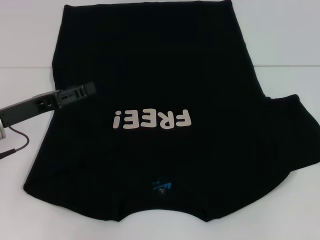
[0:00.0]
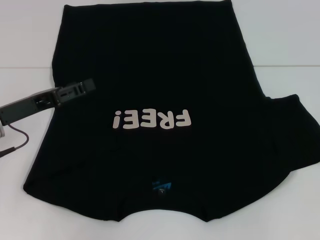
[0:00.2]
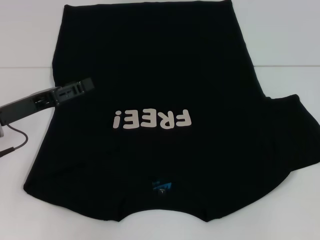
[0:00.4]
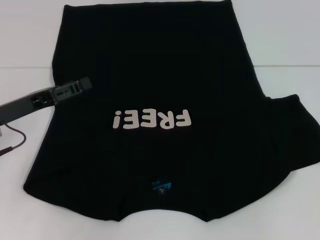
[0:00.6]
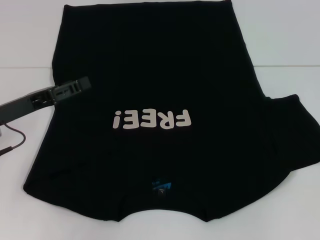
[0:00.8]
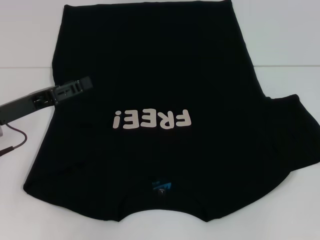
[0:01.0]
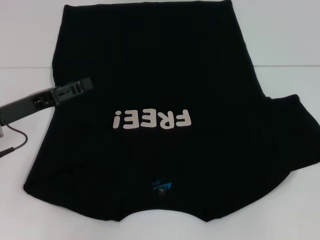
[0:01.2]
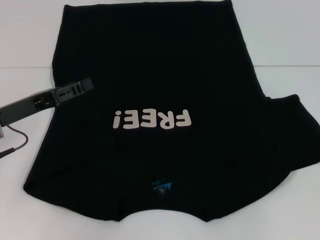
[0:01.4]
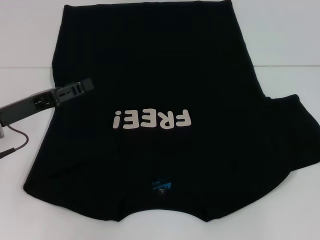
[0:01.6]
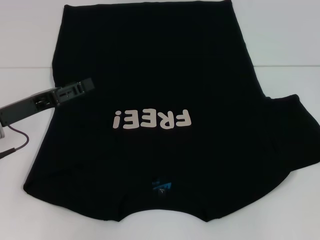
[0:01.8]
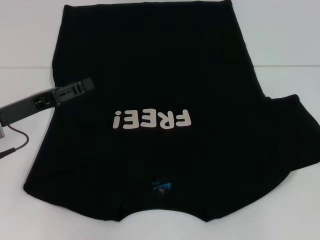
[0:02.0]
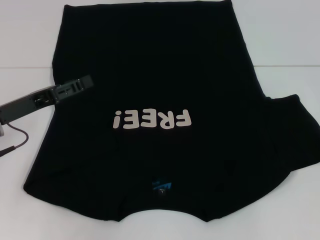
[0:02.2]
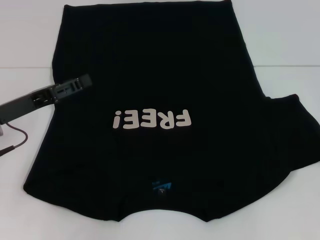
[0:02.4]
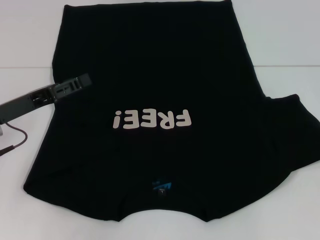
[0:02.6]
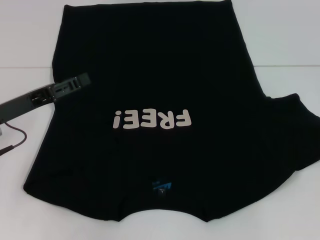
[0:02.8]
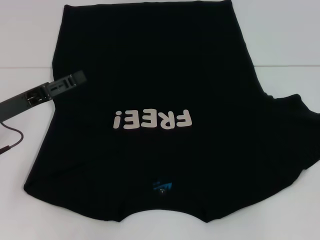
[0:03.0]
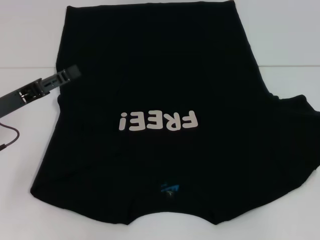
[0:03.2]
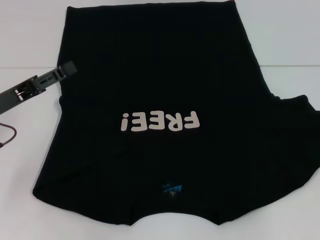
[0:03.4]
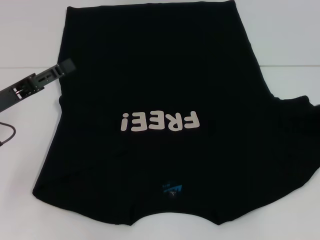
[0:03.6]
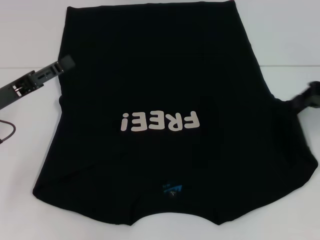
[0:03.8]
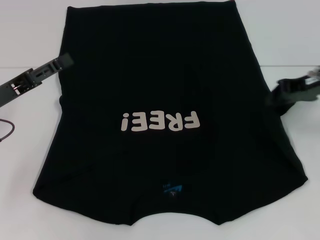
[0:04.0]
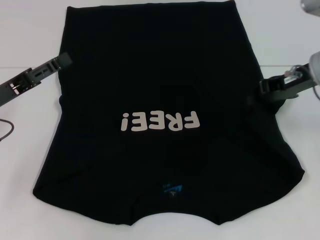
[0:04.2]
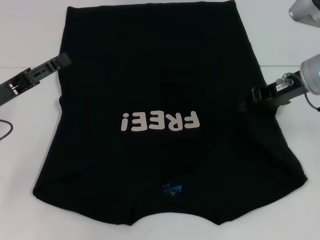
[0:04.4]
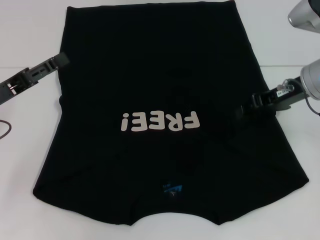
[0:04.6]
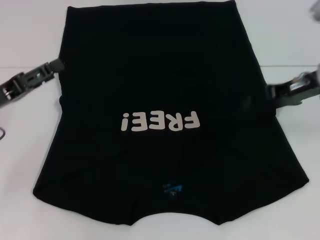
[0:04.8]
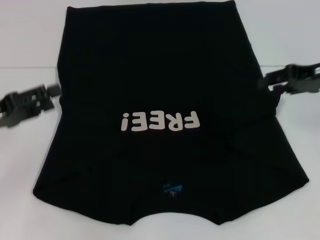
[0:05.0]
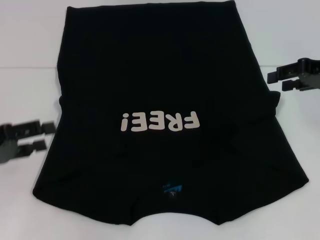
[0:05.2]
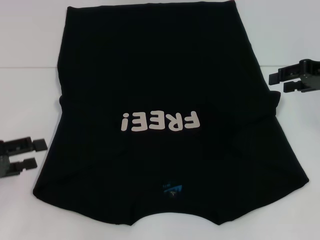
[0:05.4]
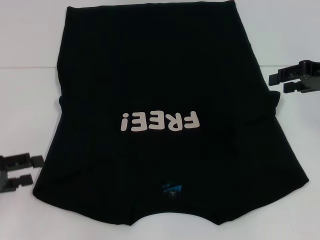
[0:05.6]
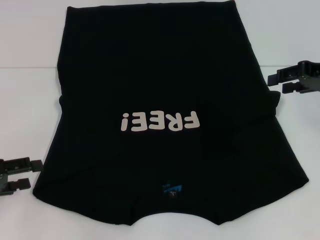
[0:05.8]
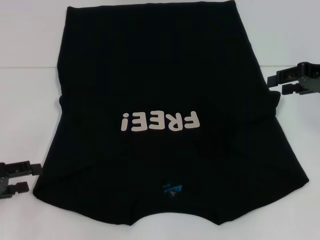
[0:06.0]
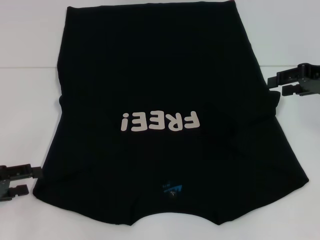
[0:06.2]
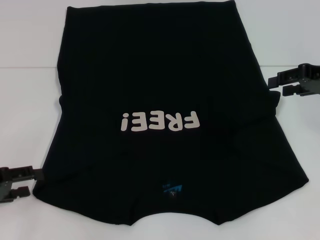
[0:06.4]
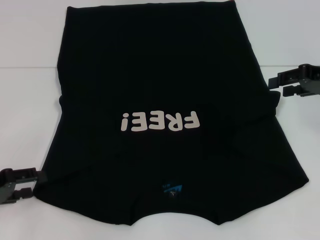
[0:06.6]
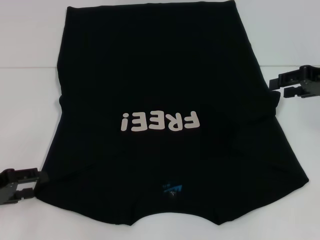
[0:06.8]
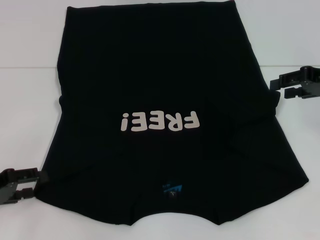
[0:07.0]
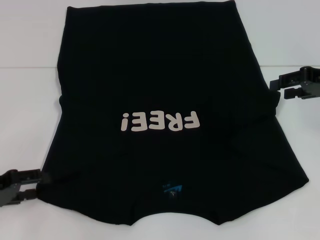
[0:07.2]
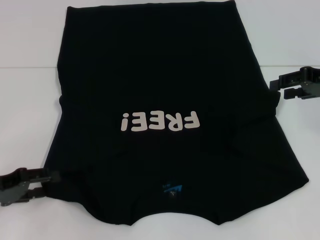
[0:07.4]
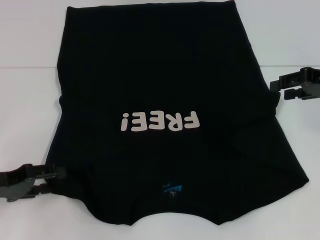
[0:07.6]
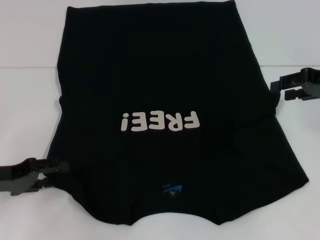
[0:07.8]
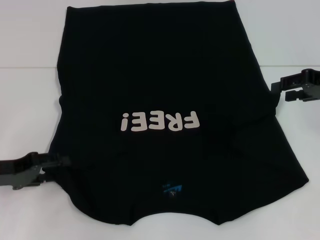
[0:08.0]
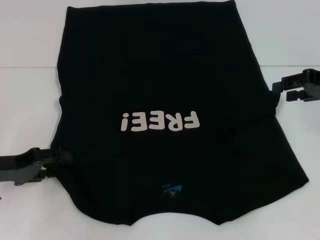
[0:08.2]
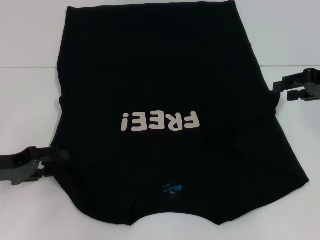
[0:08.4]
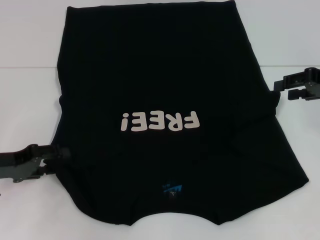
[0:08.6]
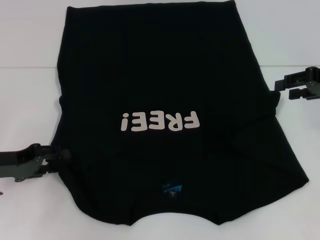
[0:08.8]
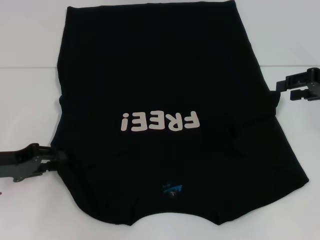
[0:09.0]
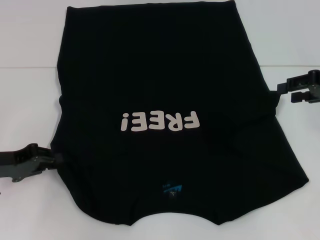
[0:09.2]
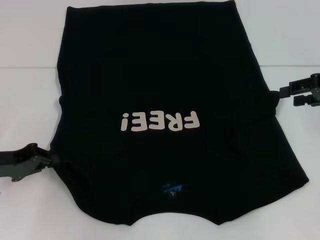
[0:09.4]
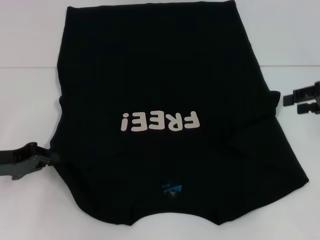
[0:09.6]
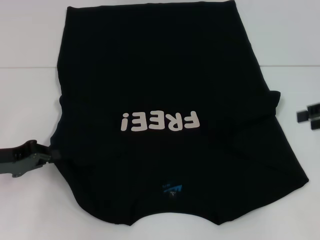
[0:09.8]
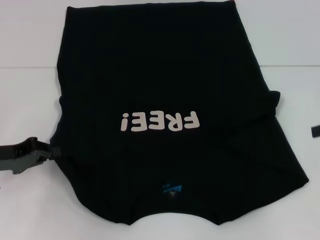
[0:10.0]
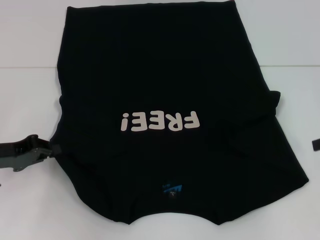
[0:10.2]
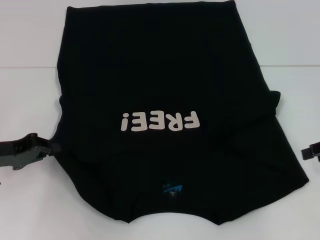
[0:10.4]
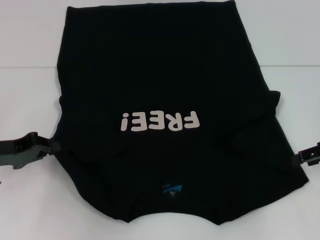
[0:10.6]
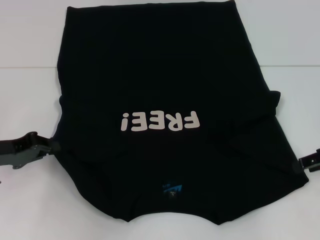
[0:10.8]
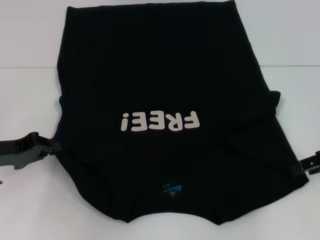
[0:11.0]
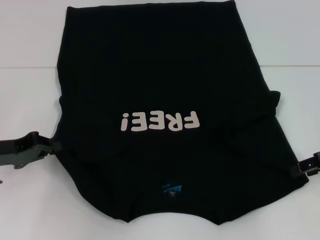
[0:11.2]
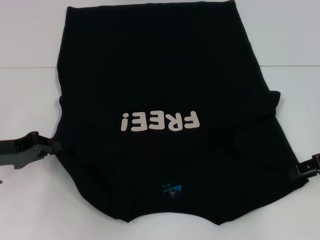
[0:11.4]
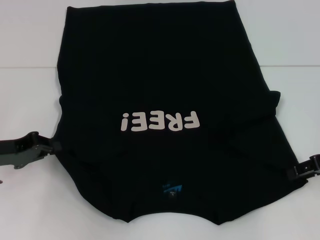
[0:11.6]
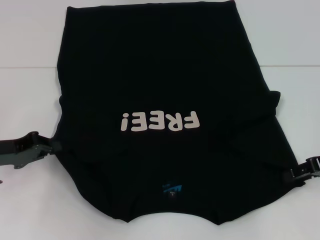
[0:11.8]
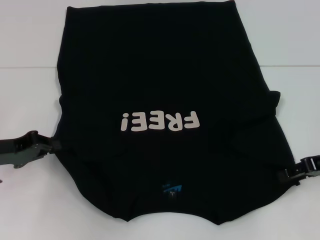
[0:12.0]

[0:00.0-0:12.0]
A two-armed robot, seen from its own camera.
Step, 0:00.0 to 0:04.6: Fold the bottom right sleeve with your right hand.
Step, 0:04.8 to 0:10.0: Grab the bottom left corner with your left hand.
0:01.6 to 0:03.0: The right gripper closes.
0:03.0 to 0:04.4: The right gripper shifts about 15 cm to the left.
0:04.4 to 0:06.0: The right gripper moves to the right, some 10 cm, and opens, while the left gripper moves backward and to the left, some 10 cm.
0:06.0 to 0:07.6: There are only small adjustments of the grippers.
0:07.6 to 0:09.0: The grippers move only a little.
0:09.0 to 0:10.4: The left gripper closes; the right gripper changes place by about 5 cm.
0:10.4 to 0:12.0: The right gripper moves some 5 cm.

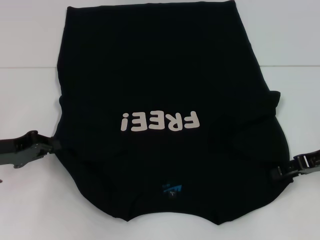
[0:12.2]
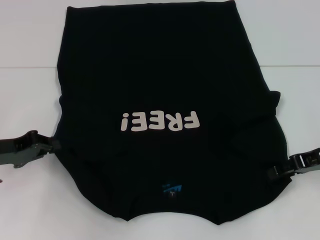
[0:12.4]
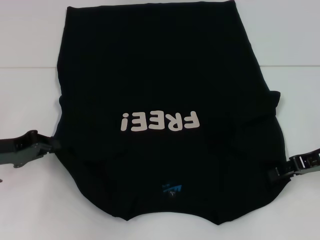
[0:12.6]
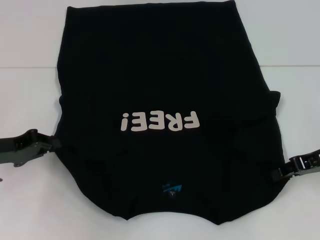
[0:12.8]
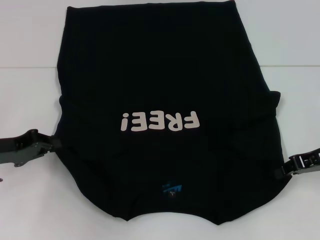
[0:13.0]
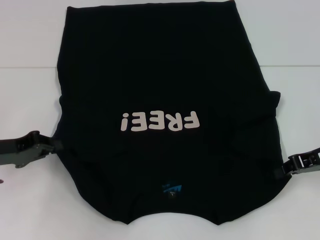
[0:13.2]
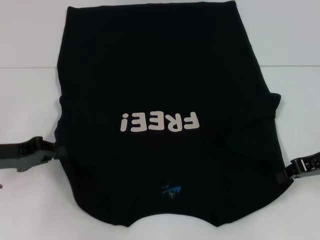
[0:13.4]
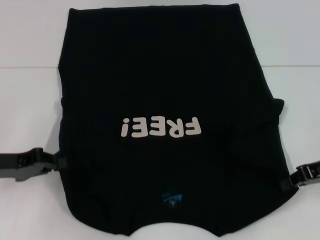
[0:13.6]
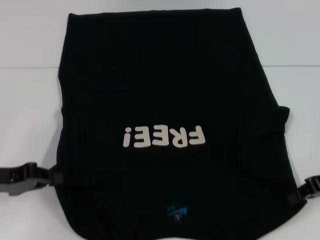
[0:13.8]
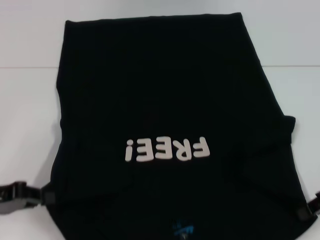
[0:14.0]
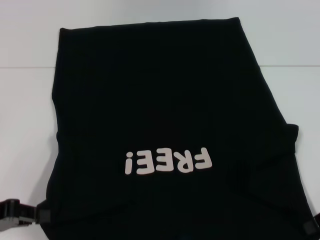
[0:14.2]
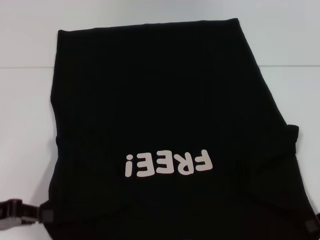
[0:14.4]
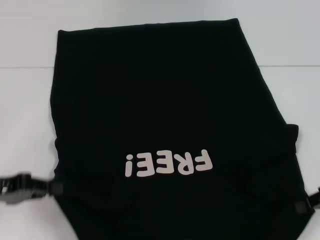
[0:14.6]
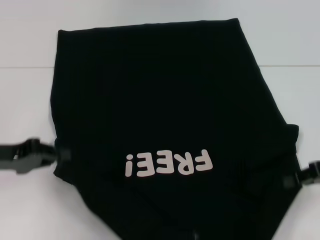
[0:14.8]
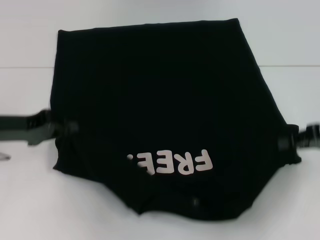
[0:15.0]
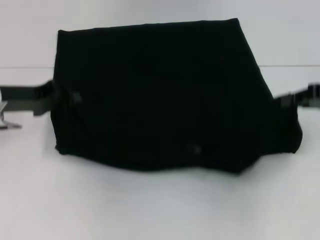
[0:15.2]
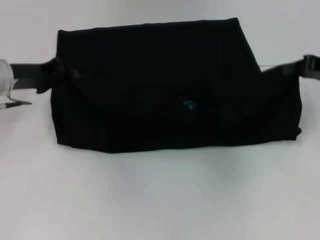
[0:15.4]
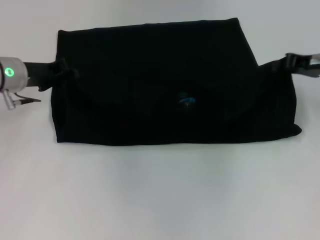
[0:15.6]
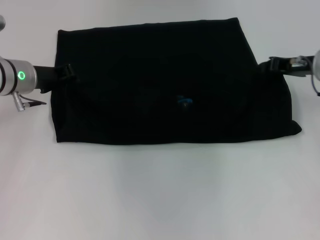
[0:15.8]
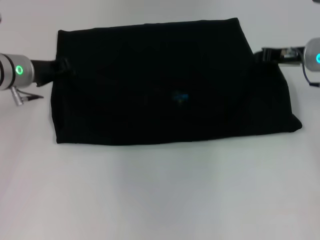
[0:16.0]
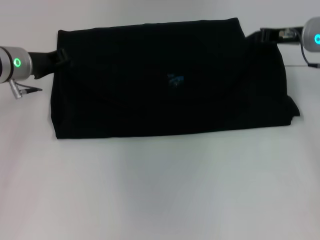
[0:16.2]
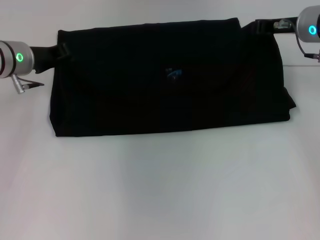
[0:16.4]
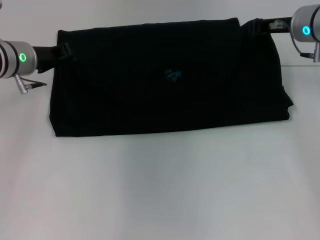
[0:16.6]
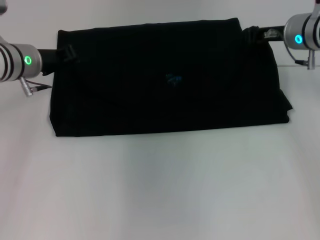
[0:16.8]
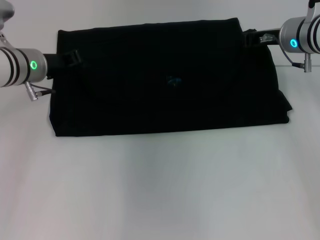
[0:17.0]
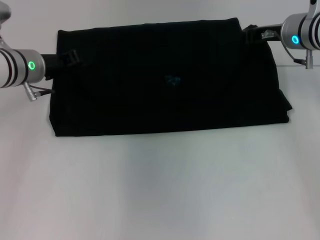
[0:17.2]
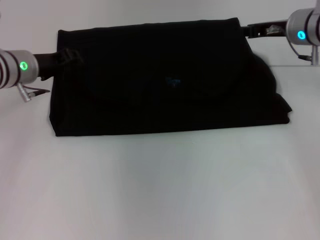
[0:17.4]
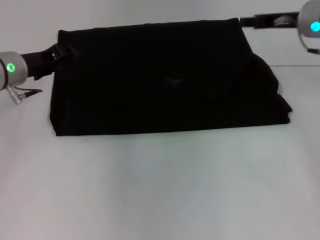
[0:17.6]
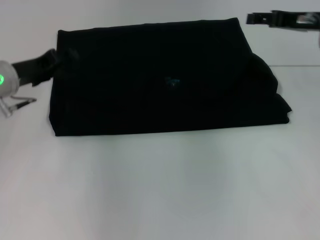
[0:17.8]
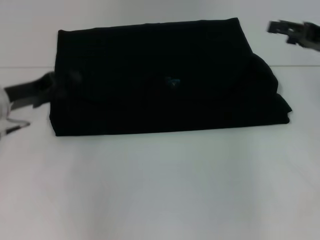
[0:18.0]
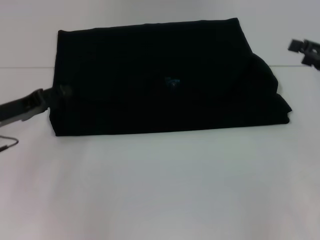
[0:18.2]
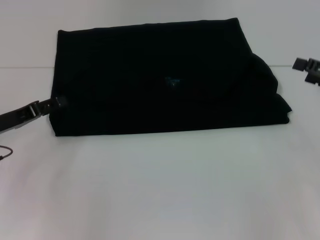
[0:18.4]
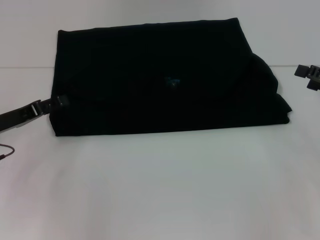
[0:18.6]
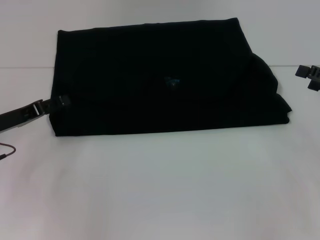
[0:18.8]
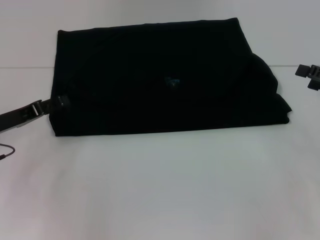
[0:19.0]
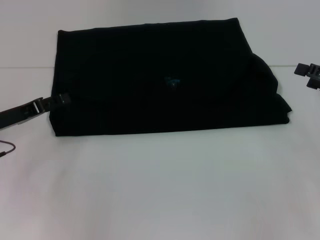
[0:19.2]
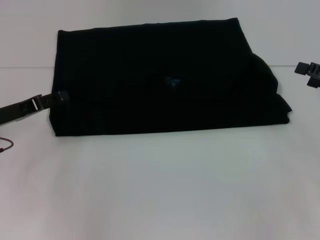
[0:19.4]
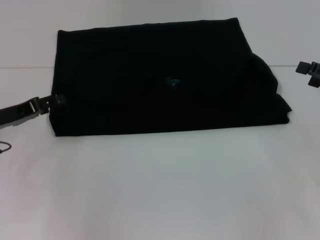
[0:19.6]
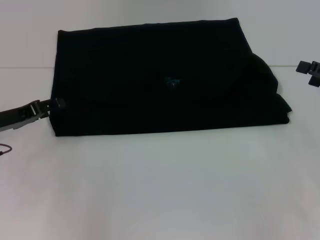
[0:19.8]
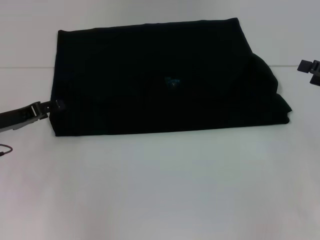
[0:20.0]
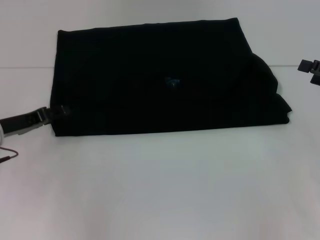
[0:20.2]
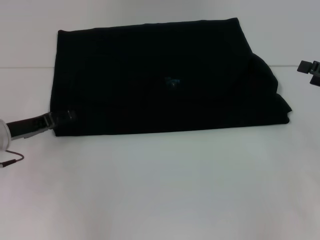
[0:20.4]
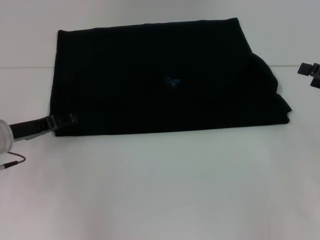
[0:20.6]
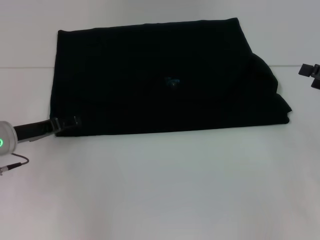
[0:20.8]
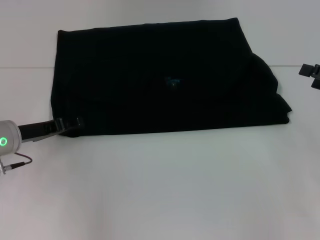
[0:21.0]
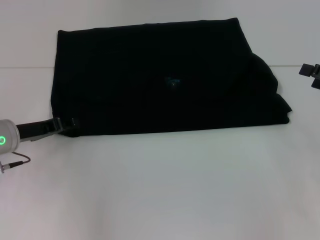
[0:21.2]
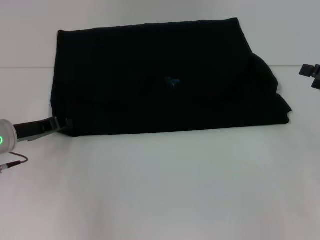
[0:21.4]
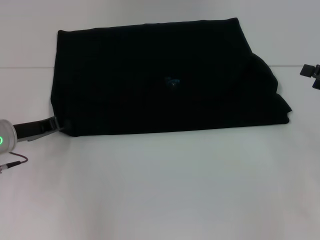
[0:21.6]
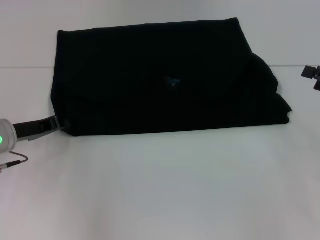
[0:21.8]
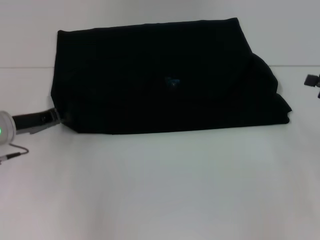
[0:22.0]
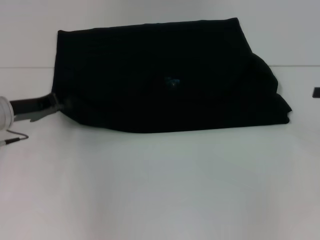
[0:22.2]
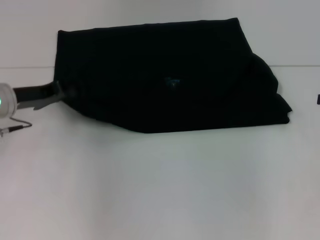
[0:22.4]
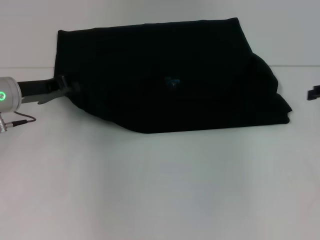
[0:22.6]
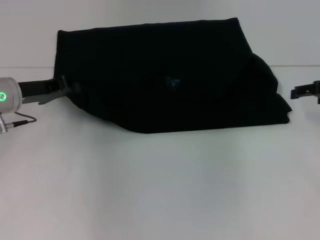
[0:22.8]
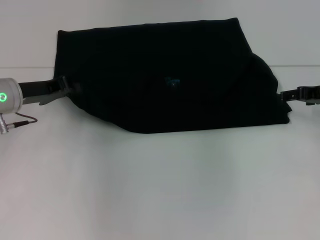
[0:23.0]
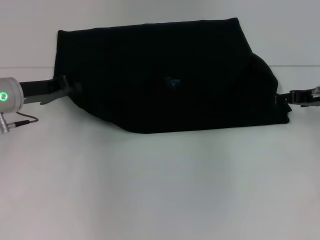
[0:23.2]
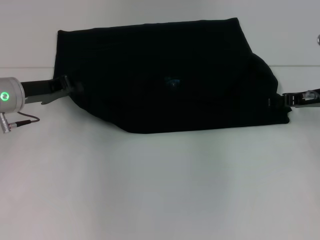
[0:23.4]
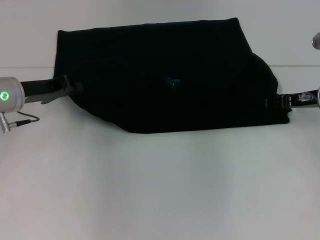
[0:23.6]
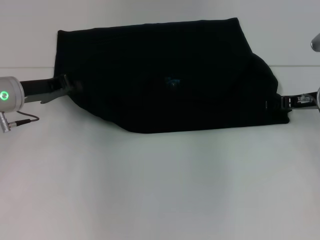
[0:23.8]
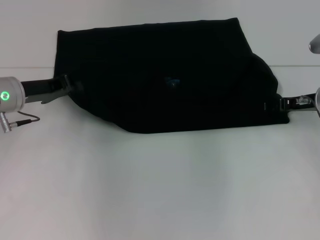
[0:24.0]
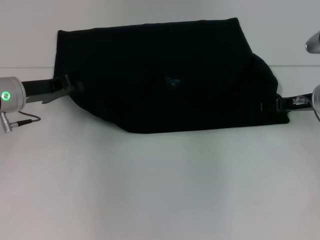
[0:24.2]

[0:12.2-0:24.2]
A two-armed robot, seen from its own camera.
Step, 0:13.4 to 0:17.6: Fold the clothes with your left hand.
Step, 0:13.4 to 0:17.6: Fold the clothes with your right hand.
0:12.2 to 0:13.8: The right gripper closes.
0:13.8 to 0:15.2: The left gripper heads forward, covering some 10 cm; the right gripper is displaced upward by roughly 5 cm.
0:15.2 to 0:16.6: The right gripper goes some 15 cm forward and to the left, while the left gripper shifts some 10 cm forward.
0:16.6 to 0:18.2: The right gripper heads to the right and backward, covering roughly 15 cm, and opens. The left gripper heads backward, to the left and downward, covering roughly 15 cm, and opens its fingers.
0:18.2 to 0:21.2: The grippers move only a little.
0:21.2 to 0:22.6: The right gripper travels forward by approximately 5 cm. Meanwhile the left gripper is displaced upward by approximately 5 cm, and closes.
0:22.6 to 0:24.2: The right gripper shifts some 10 cm to the left and downward.
